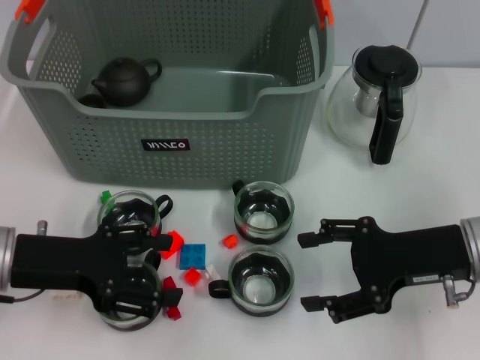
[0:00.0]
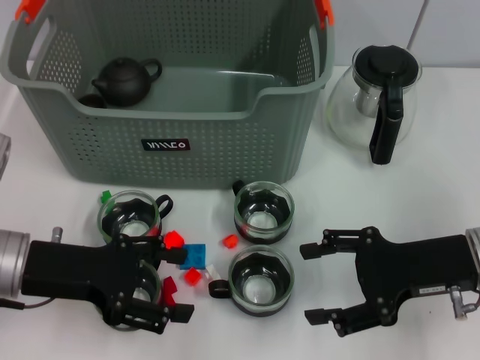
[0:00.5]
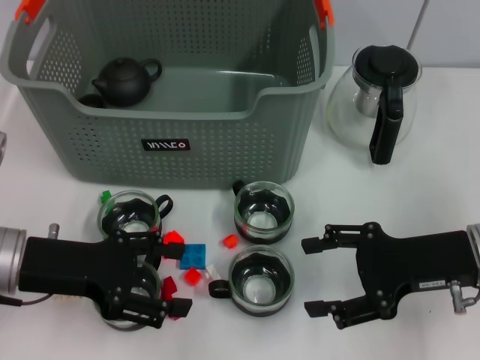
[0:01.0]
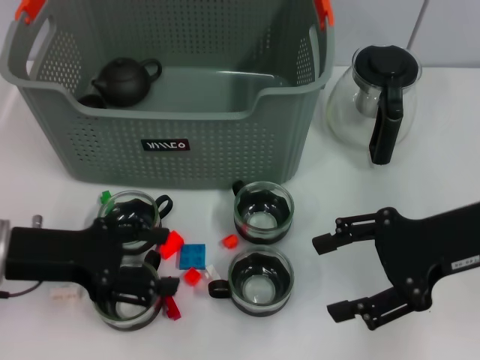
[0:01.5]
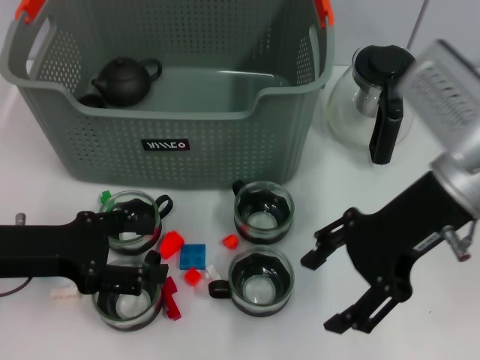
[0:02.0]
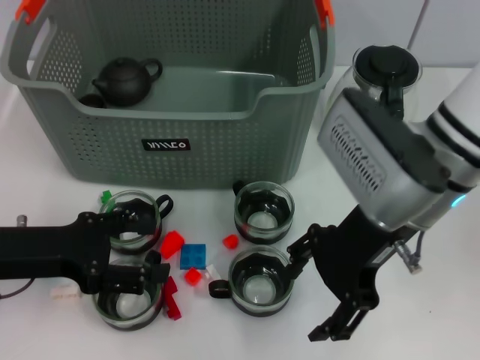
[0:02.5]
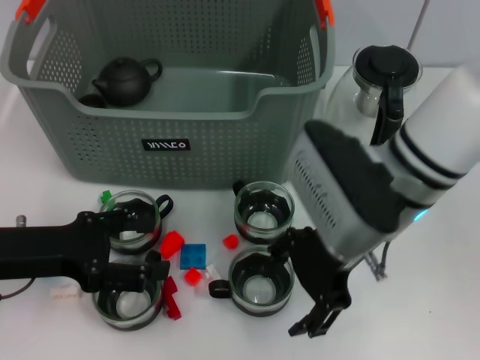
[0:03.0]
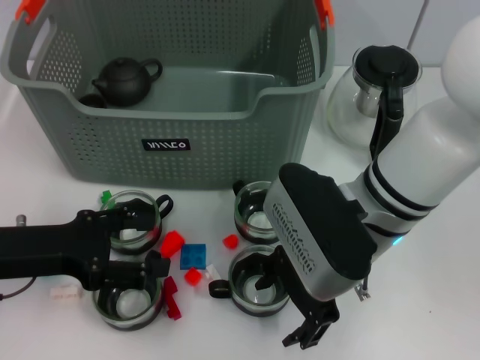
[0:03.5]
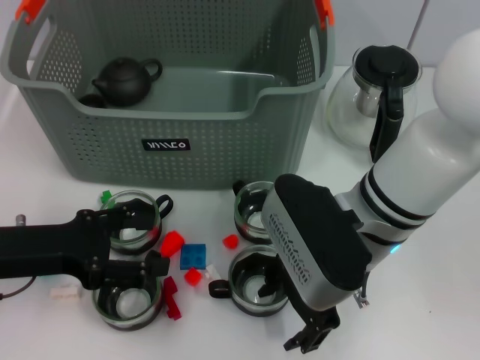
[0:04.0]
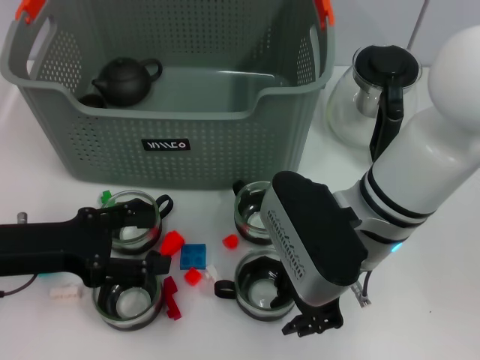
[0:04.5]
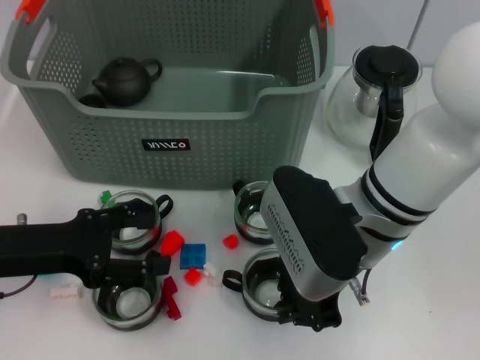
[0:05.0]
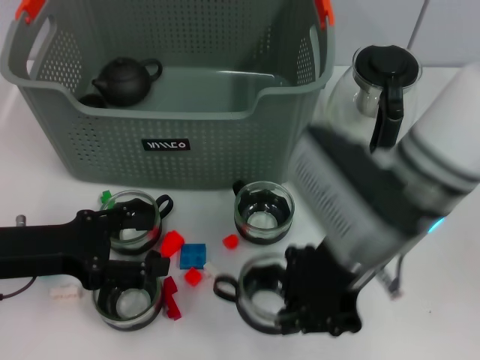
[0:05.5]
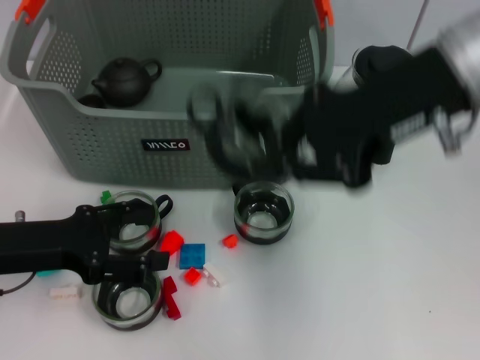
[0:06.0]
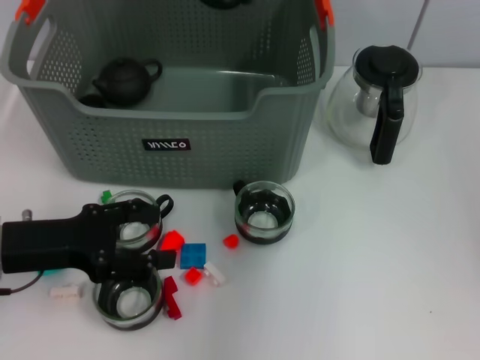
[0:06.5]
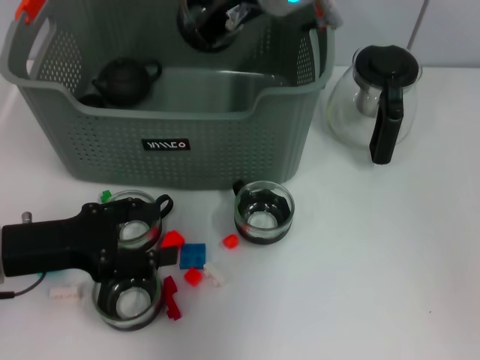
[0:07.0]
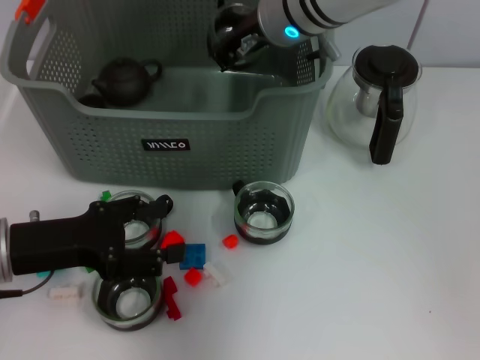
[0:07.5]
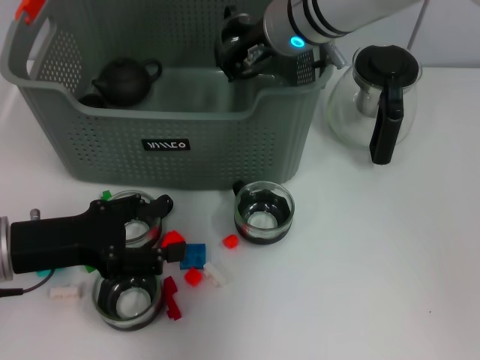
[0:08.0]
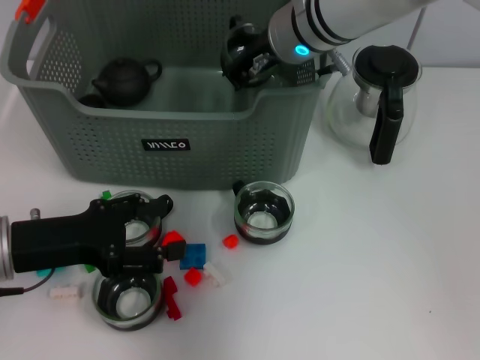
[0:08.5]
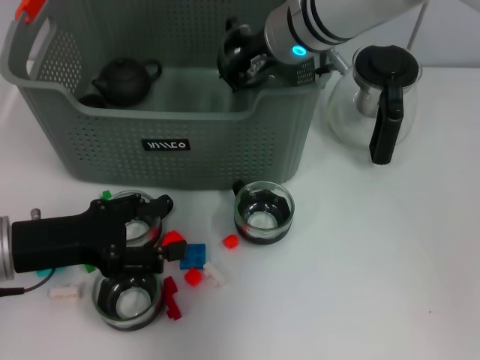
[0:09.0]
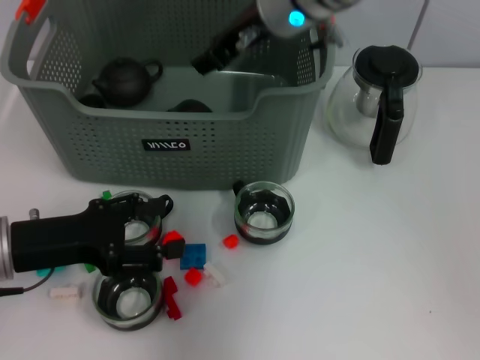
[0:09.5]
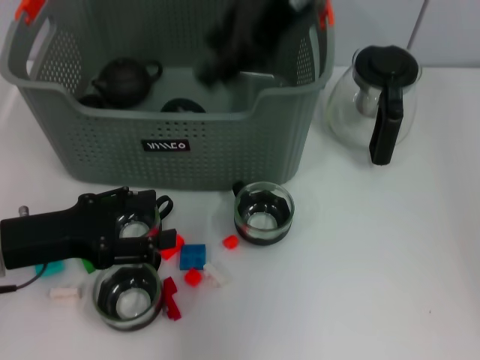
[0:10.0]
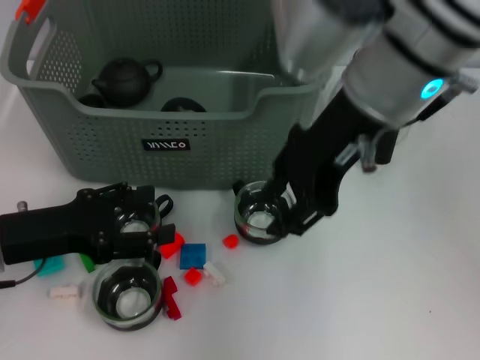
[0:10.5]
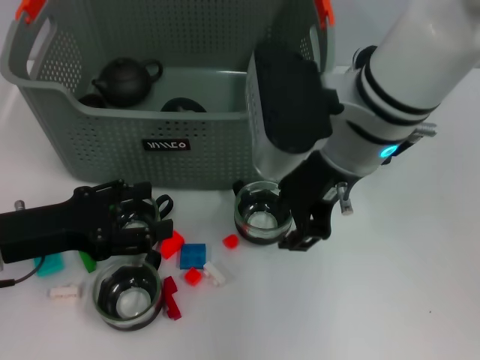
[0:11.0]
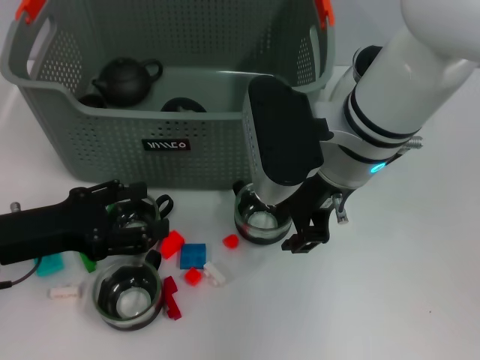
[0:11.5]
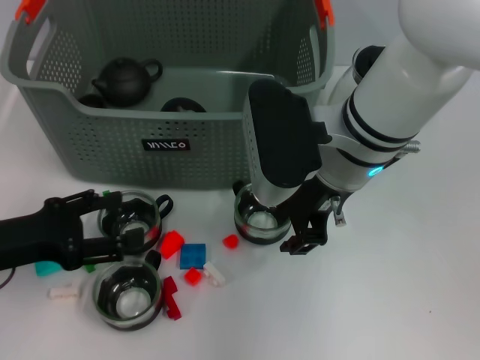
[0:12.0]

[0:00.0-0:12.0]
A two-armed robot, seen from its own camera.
Task of the whole recording: pick up the teacup on the table and place it into the storage bin, pick up the block on the table and place it into the storage bin.
Step, 0.0 to 5.0 s: Grasp the cup with right gripper.
Step, 5.5 to 9.5 s: Place the cup in the storage box with right gripper.
0.0 to 2.0 s: The right gripper heads upward and to the left, covering approximately 10 cm.
2.0 to 4.0 s: The right gripper moves to the left and downward, roughly 10 cm.
4.0 to 6.0 s: The right gripper is displaced upward and to the right by some 15 cm, and closes up.
6.0 to 8.0 s: The right gripper moves forward, to the left and downward, some 20 cm.
8.0 to 10.0 s: The right gripper heads upward and backward, covering some 15 cm, and opens its fingers.
10.0 to 12.0 s: The right gripper heads downward, covering some 15 cm.

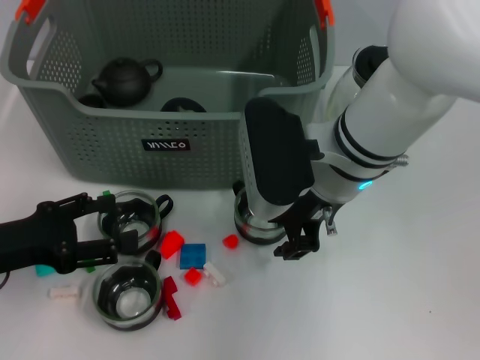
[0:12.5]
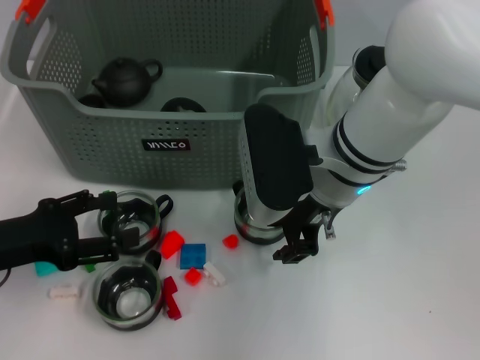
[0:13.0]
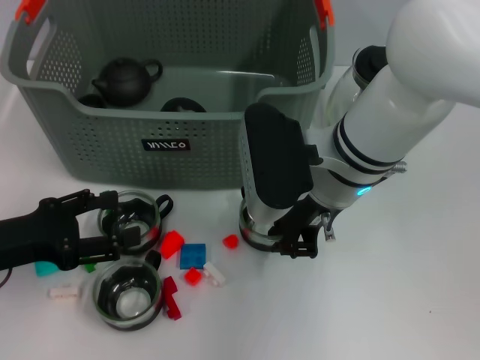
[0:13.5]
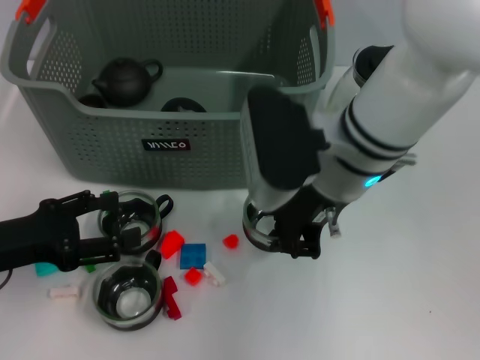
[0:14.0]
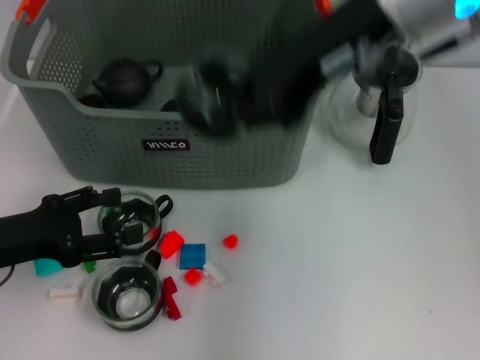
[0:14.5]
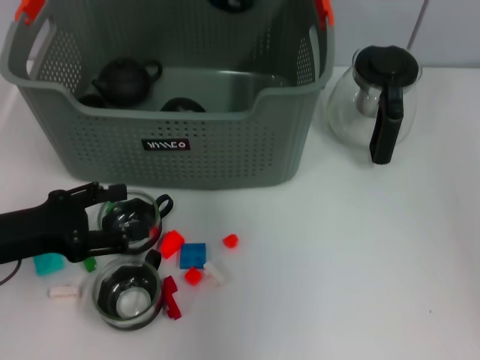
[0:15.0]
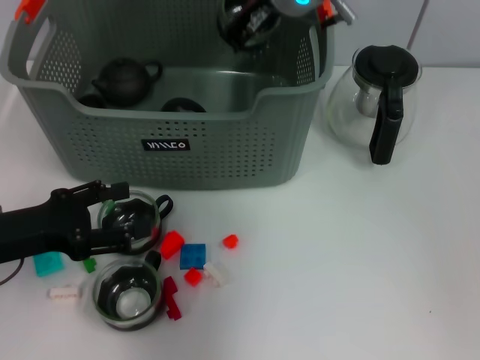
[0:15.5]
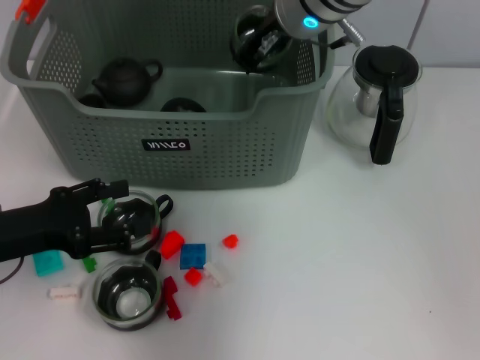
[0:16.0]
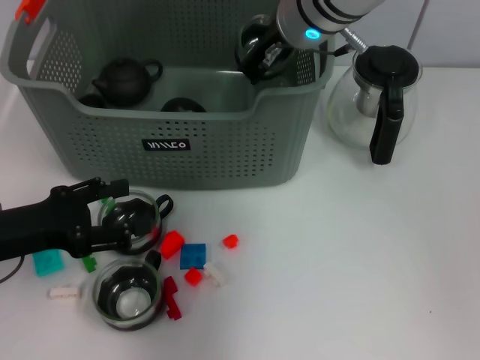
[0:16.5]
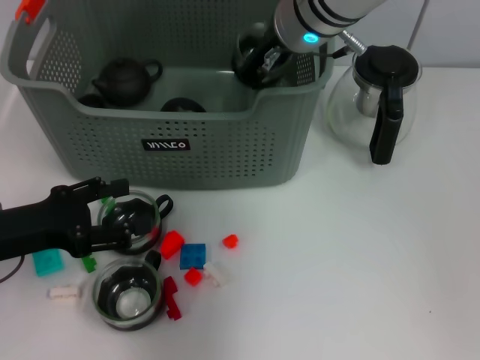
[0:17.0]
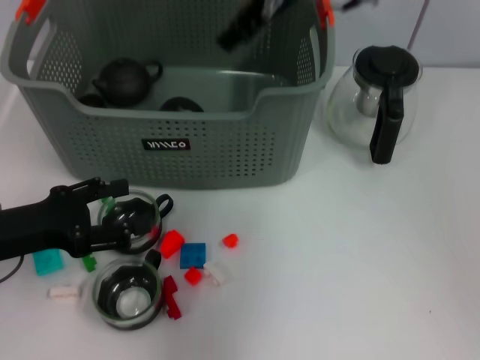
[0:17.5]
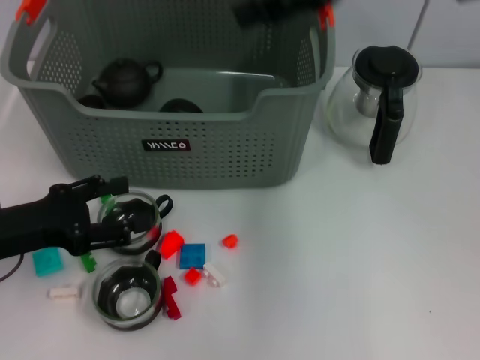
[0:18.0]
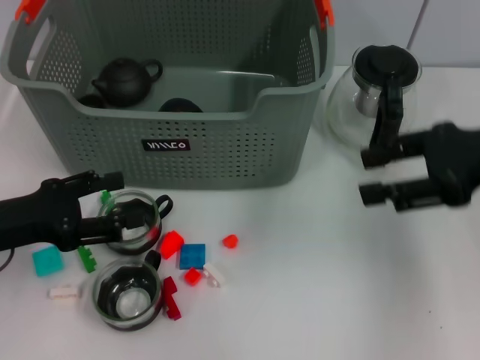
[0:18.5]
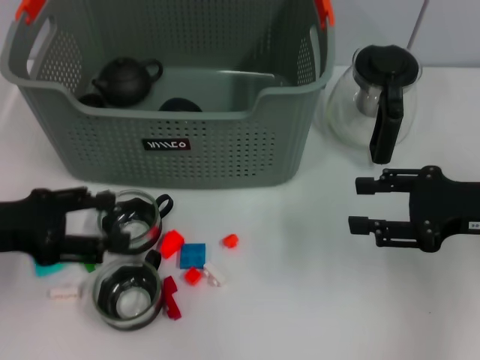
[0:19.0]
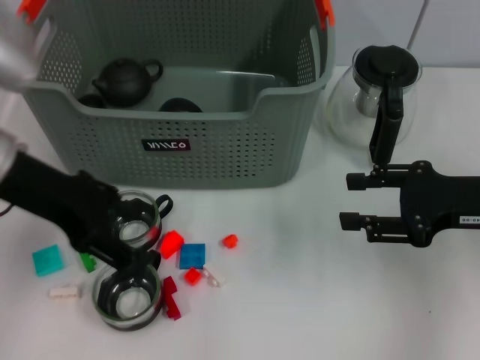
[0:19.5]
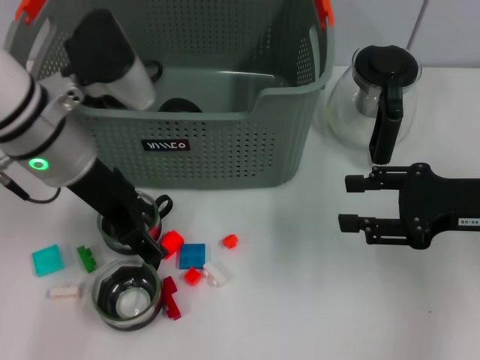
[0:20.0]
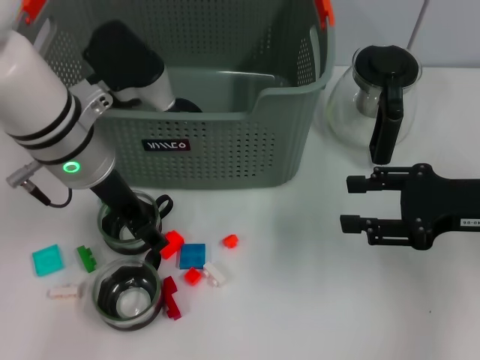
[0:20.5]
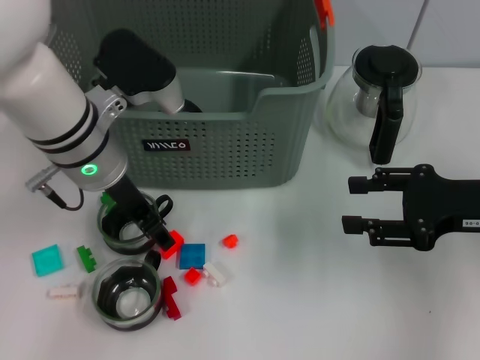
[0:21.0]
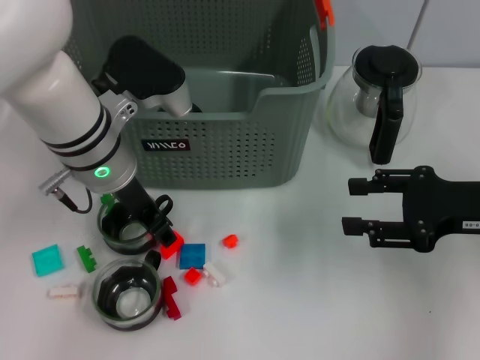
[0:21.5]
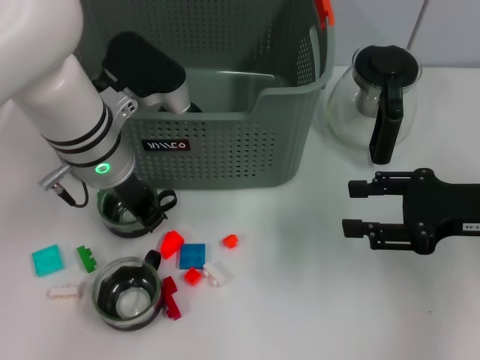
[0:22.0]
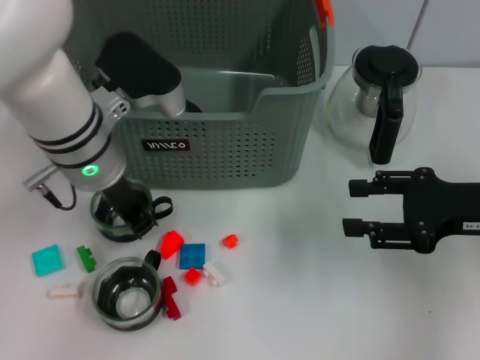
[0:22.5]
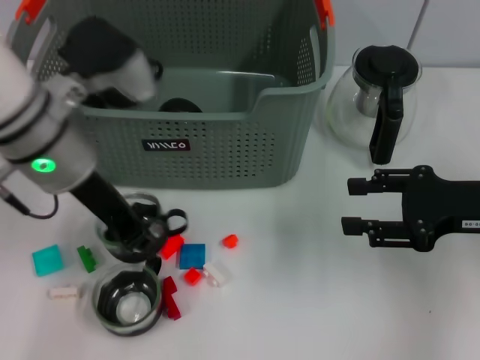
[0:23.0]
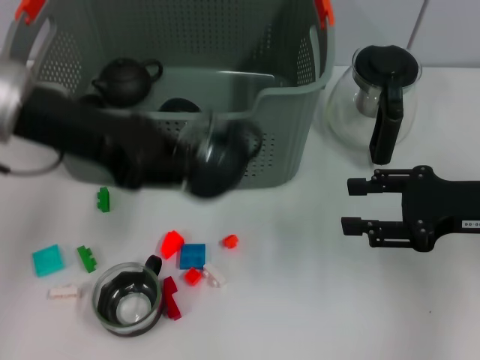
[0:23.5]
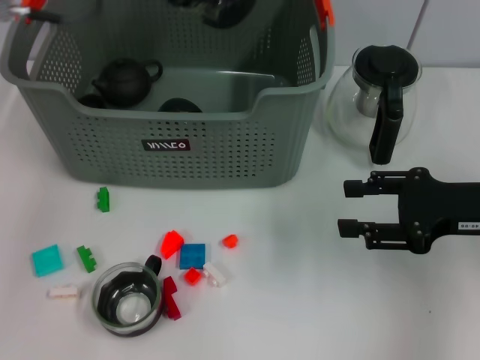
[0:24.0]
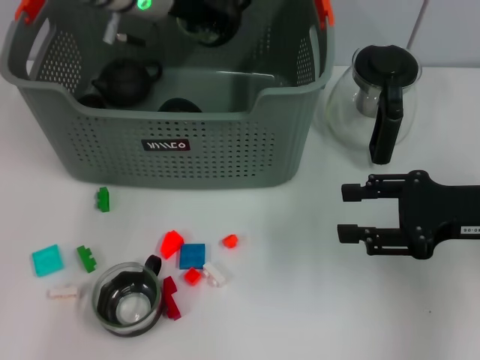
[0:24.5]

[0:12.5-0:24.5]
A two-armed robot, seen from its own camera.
Task of the whole recording: pick up the teacup on the table and place it into the storage bin, pick up the block on the table and place it into the storage bin.
Step, 14.5 to 17.5 s: Place the cup in the storage box with right gripper.
Step, 18.0 to 22.5 s: Grasp the cup with left gripper.
12.5 to 14.5 s: The right gripper travels upward by some 15 cm, and closes.
14.5 to 16.5 s: The right gripper is displaced forward, downward and to the left by some 15 cm.
16.5 to 18.5 s: The right gripper goes about 25 cm to the right and backward, and opens.
18.5 to 20.5 s: The left gripper moves to the right, forward and upward, approximately 20 cm; the right gripper travels downward by some 10 cm.
20.5 to 22.5 s: The left gripper closes up.
22.5 to 24.5 s: The left gripper goes some 15 cm forward and upward.

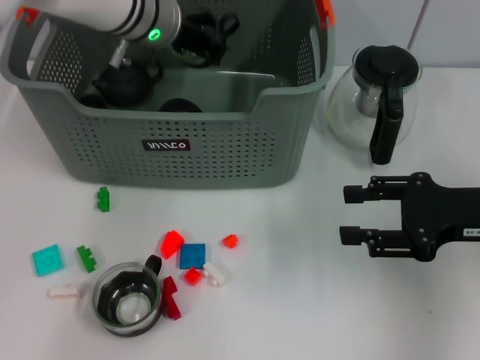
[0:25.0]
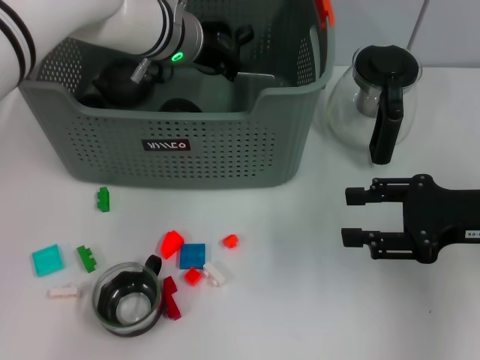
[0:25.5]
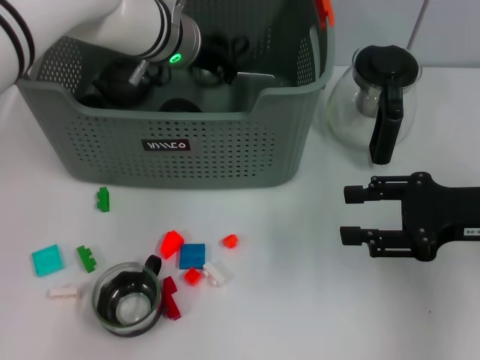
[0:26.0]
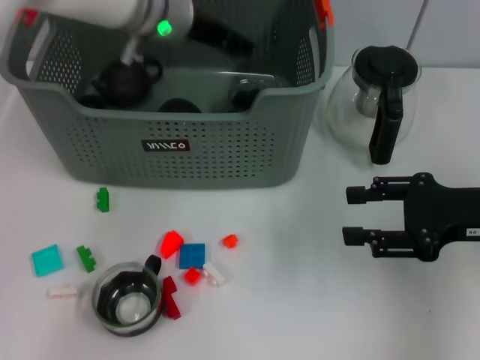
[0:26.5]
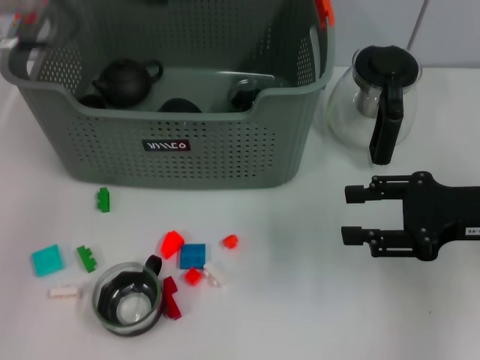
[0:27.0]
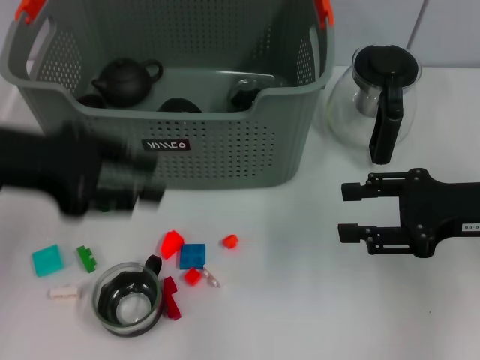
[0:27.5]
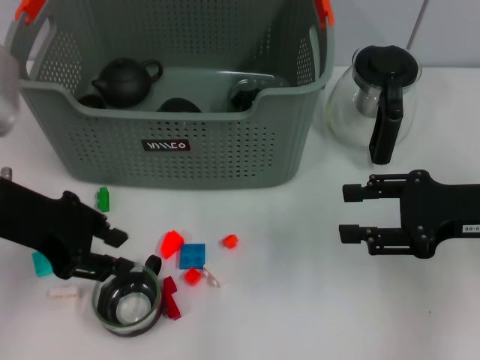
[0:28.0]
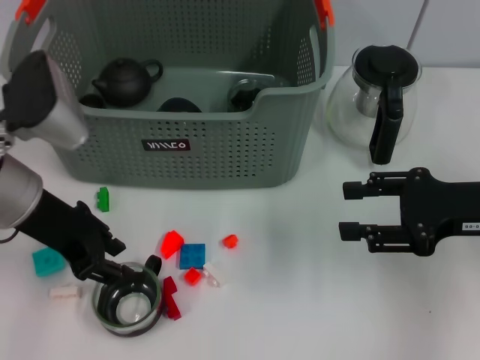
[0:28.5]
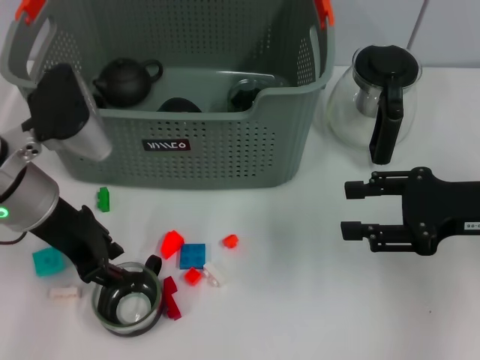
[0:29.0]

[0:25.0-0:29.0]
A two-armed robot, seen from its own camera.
Task of the whole recording: pick up the teacup on the table and place it into the storage bin, pick up the block on the table and place it into the storage bin.
25.0 to 27.0 s: The left gripper goes about 15 cm backward, to the left and upward, and opens up.
27.0 to 29.0 s: The left gripper travels downward and backward by some 15 cm.
